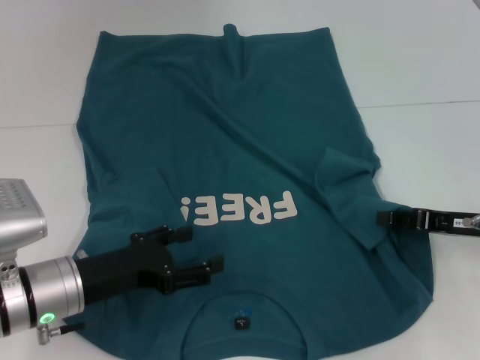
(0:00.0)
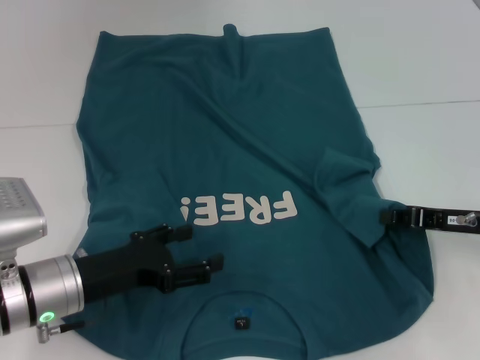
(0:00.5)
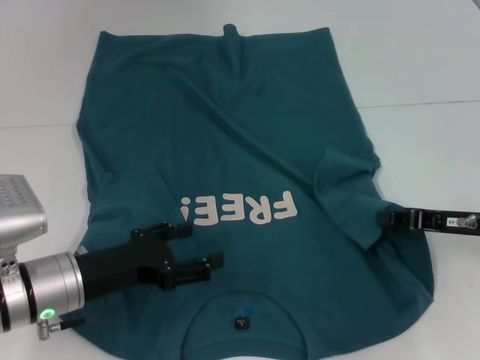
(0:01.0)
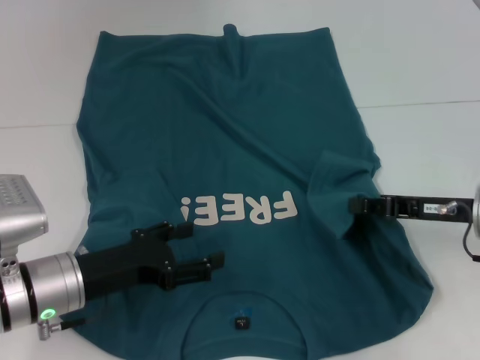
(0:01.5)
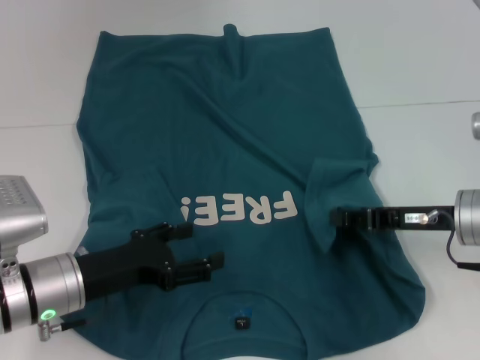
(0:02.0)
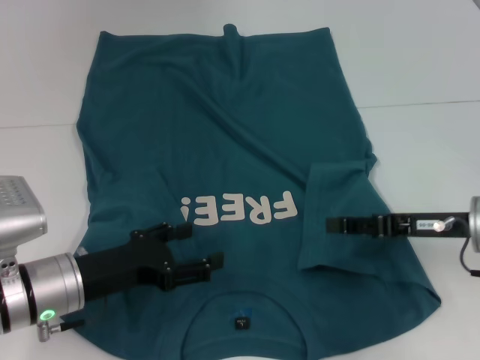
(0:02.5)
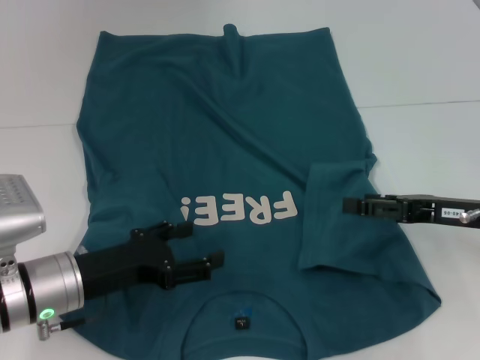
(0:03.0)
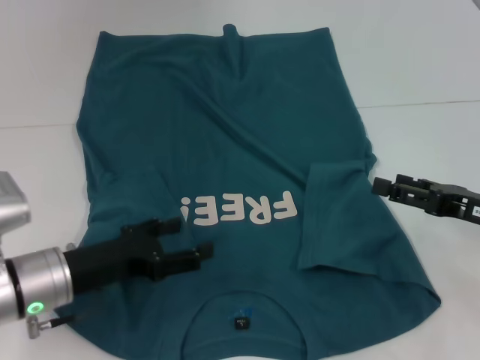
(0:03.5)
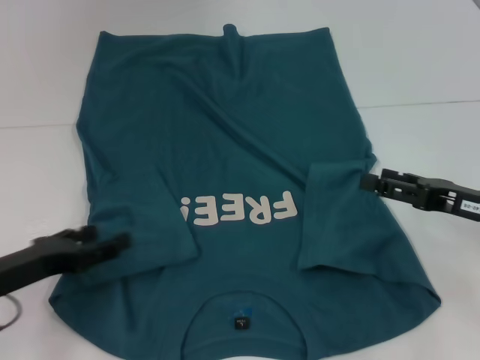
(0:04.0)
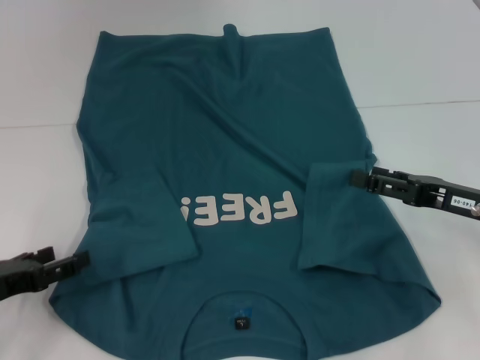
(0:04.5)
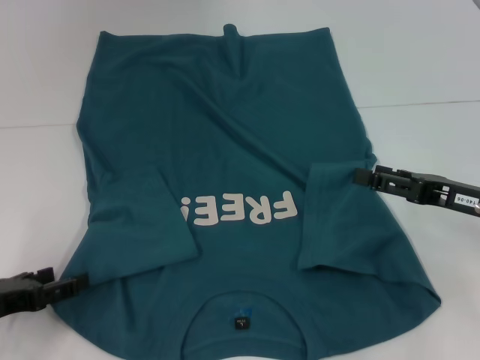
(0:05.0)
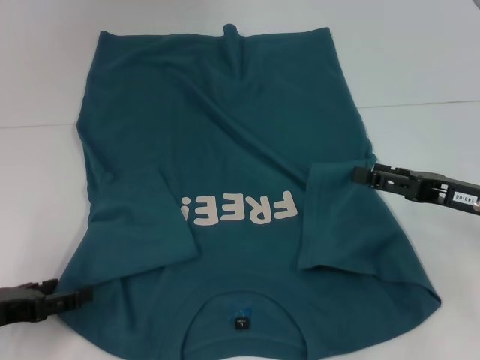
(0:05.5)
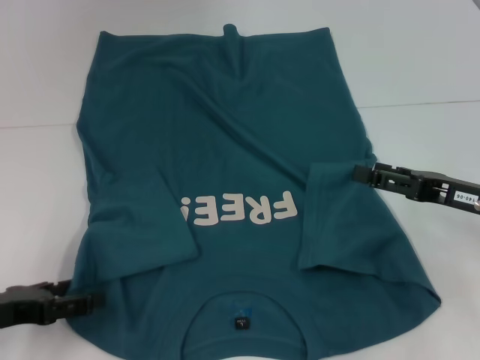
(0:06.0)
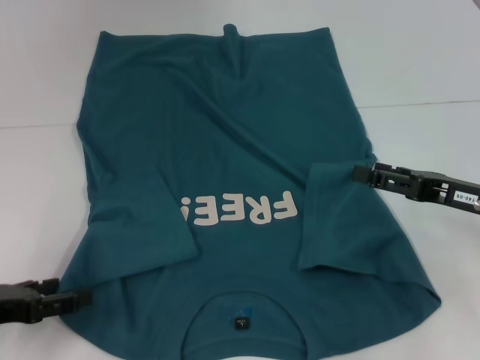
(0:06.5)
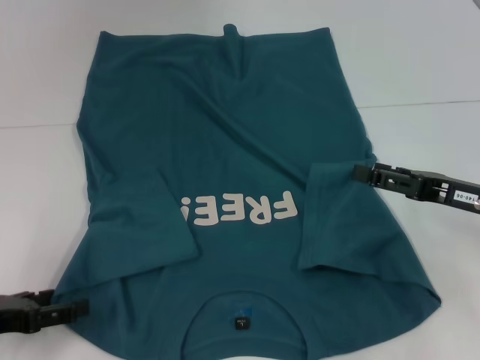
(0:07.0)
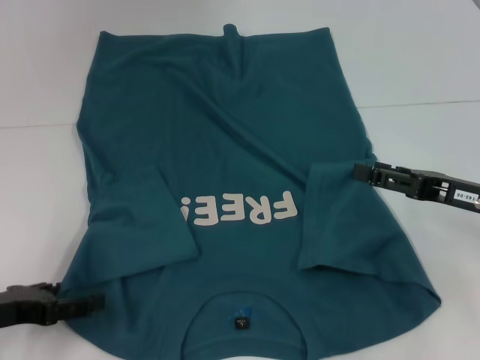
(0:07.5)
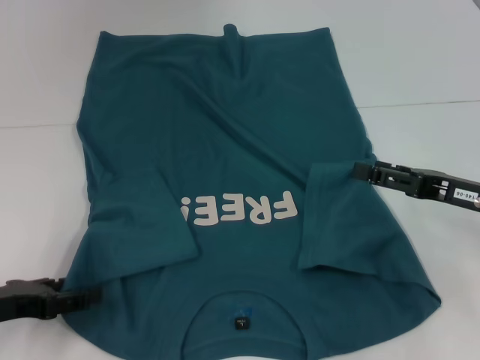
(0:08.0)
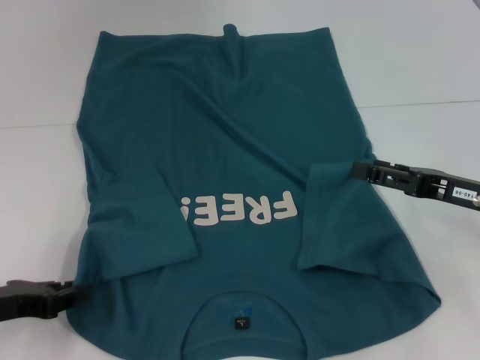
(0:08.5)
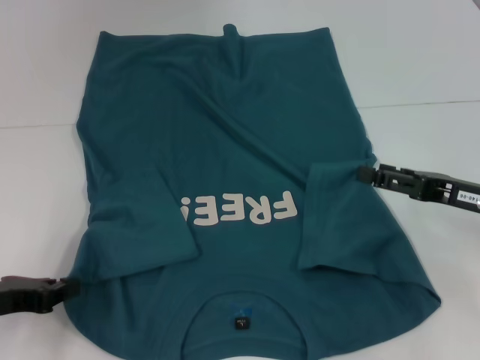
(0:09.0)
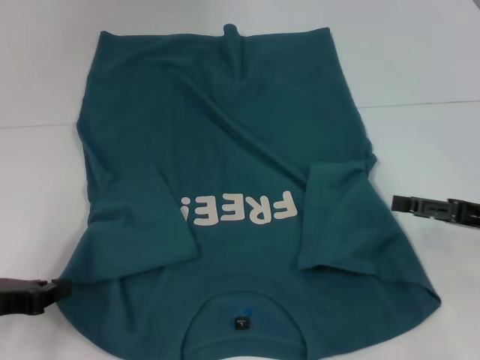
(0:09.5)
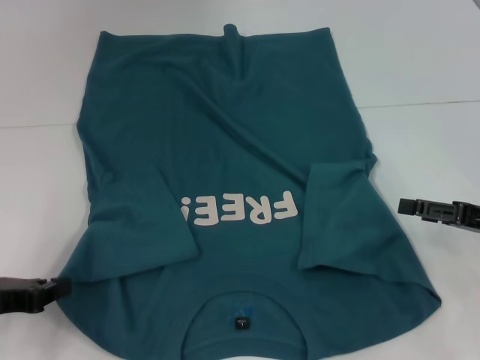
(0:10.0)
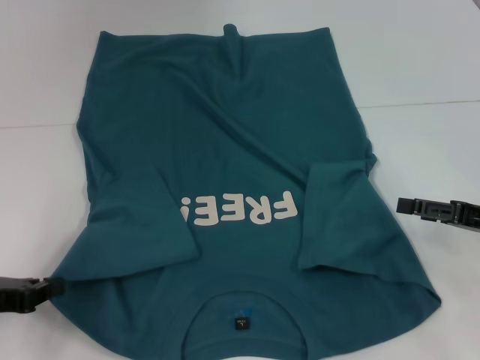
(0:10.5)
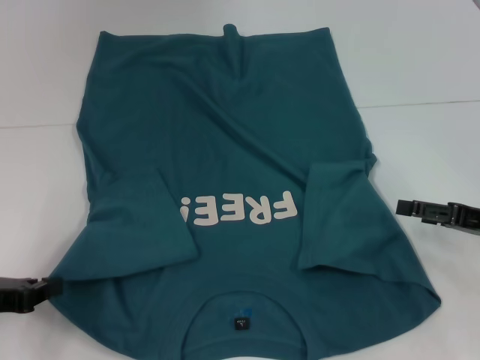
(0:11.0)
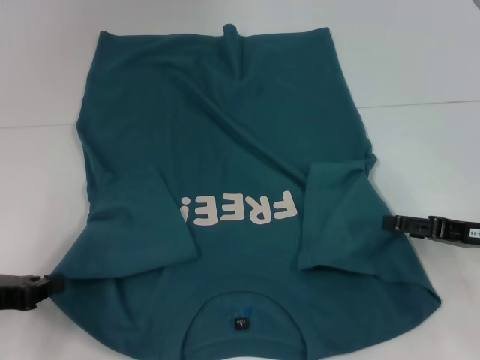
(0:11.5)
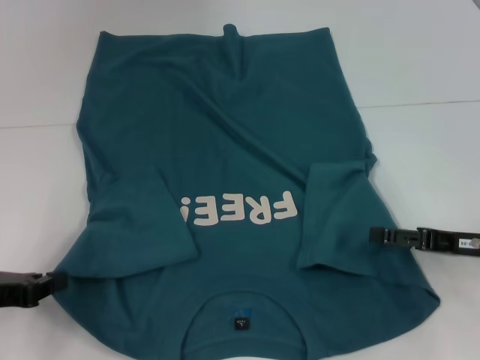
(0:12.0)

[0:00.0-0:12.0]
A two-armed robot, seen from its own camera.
Step, 0:00.0 to 0:02.5: Fold the bottom right sleeve to the right.
Step, 0:03.0 to 0:09.0: Grab the bottom left corner with your left hand.
0:00.0 to 0:02.0: The right gripper moves roughly 5 cm.
0:02.0 to 0:04.0: The right gripper shifts by some 5 cm, and opens; the left gripper goes some 10 cm to the left.
0:04.0 to 0:06.0: The grippers stay close to where they were, moving slightly.
0:06.0 to 0:08.0: Both grippers stay about where they are.
0:08.0 to 0:10.0: The left gripper closes its fingers.
0:10.0 to 0:12.0: The grippers stay close to where they were, moving slightly.

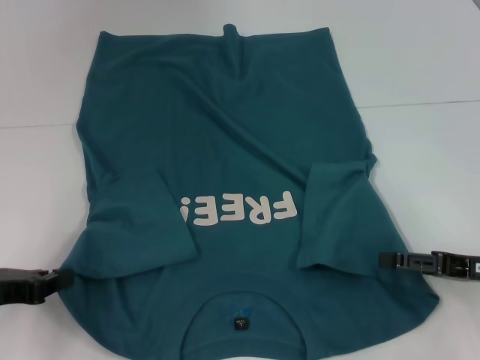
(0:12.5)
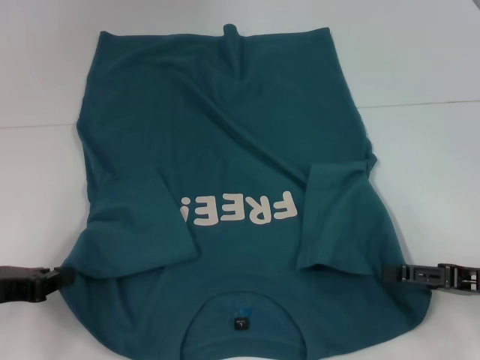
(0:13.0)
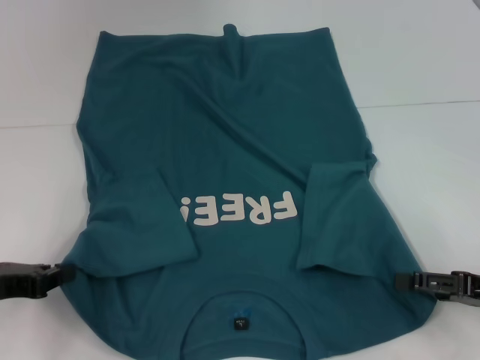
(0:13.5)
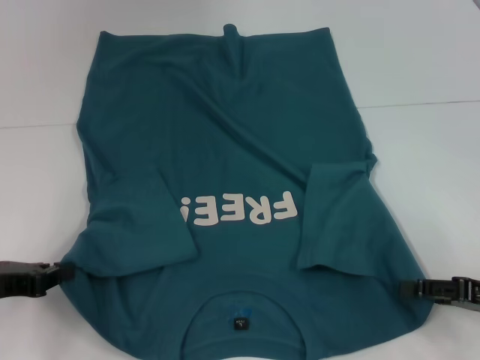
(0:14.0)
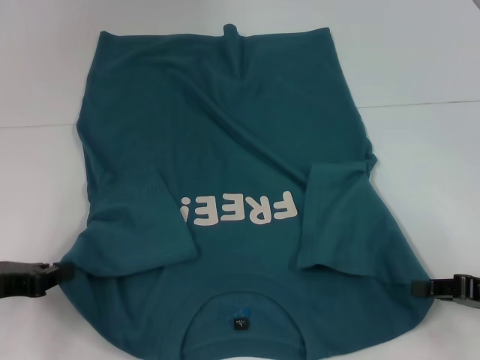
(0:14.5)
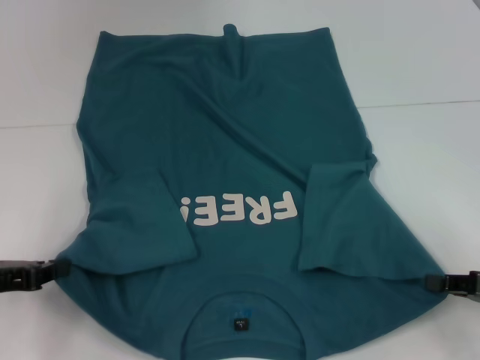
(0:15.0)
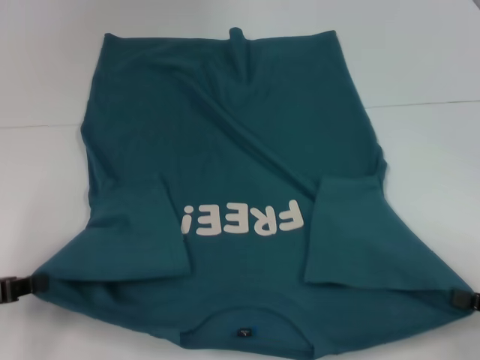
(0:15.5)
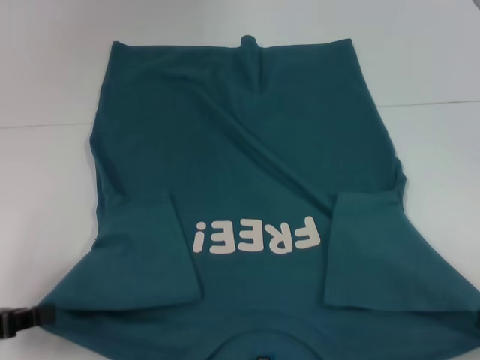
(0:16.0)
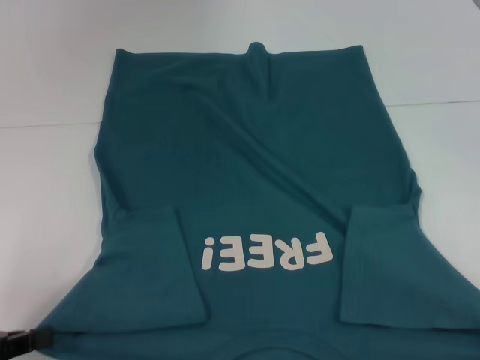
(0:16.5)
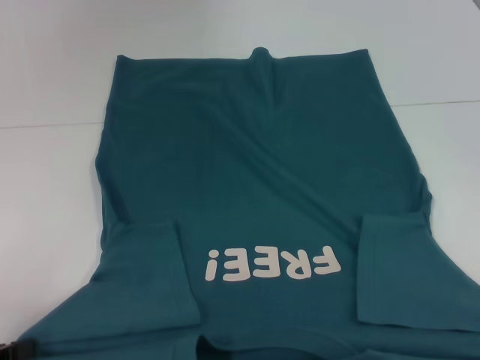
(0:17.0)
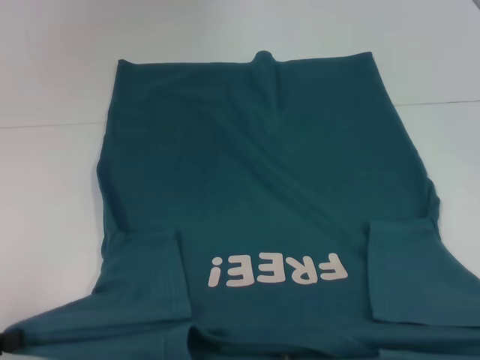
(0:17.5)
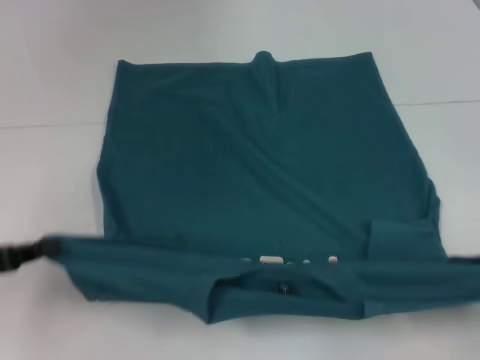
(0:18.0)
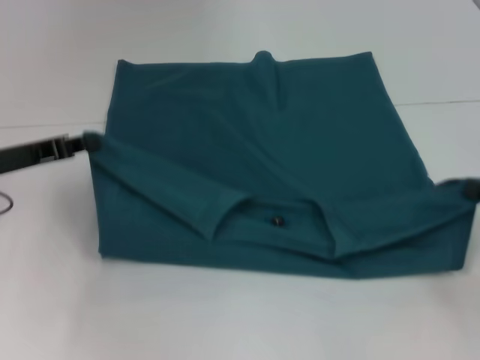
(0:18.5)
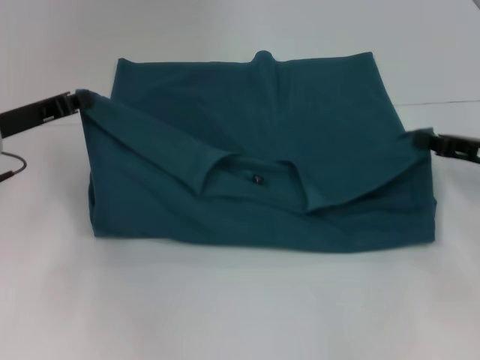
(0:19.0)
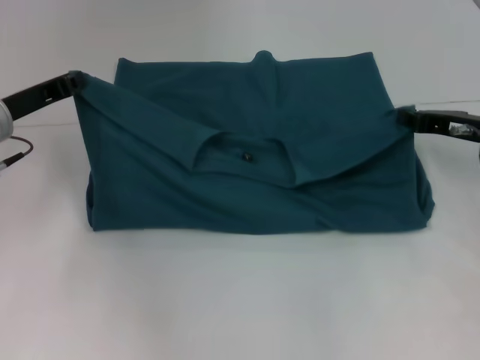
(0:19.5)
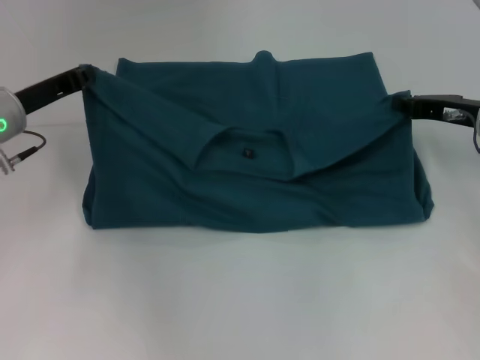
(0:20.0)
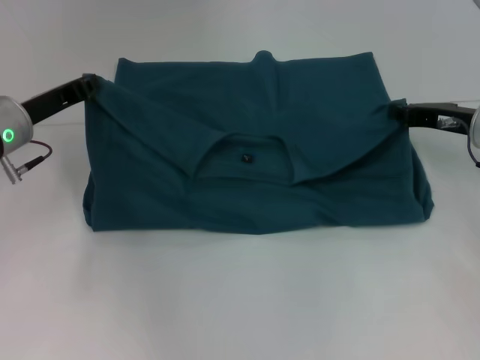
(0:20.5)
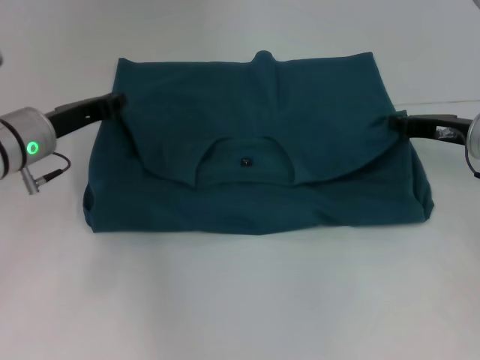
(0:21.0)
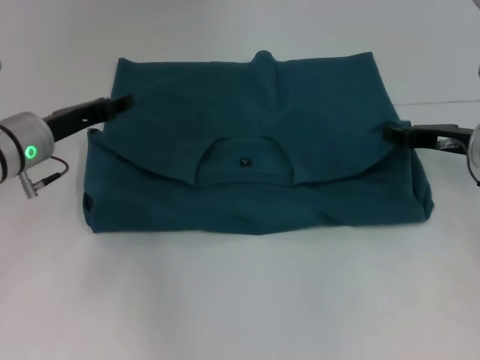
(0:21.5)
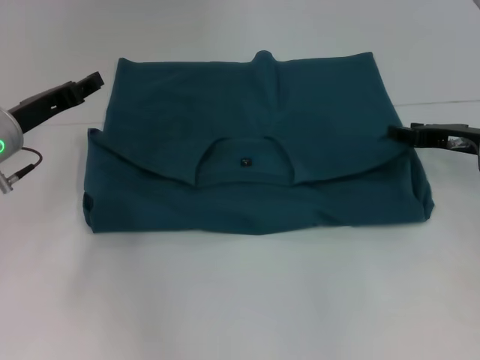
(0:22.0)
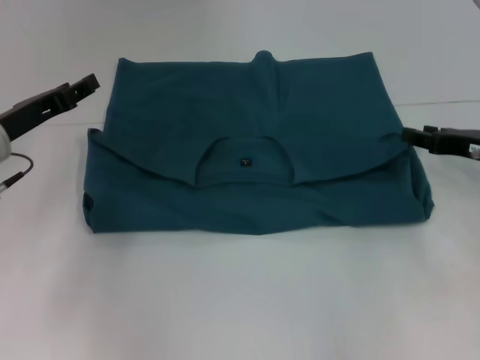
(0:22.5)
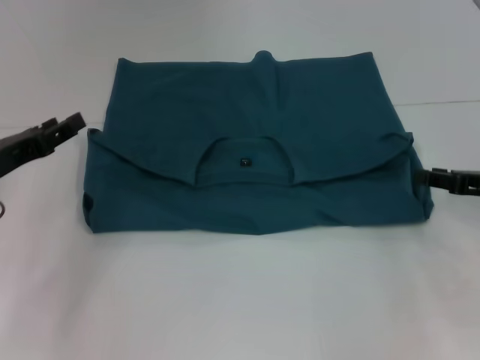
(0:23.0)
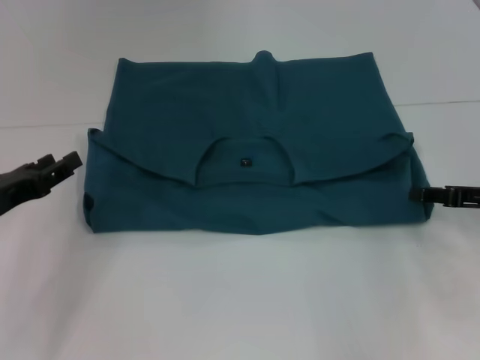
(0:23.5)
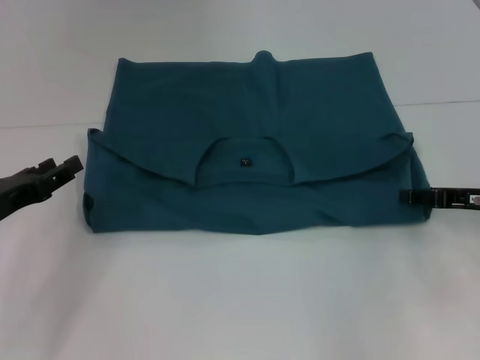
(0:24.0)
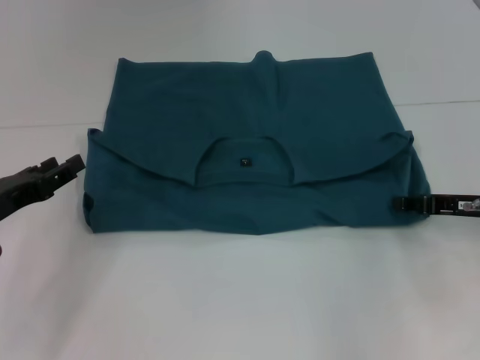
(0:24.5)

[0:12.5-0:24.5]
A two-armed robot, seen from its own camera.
Step, 0:12.5 to 0:14.5: Grab the bottom right corner with your right hand.
Step, 0:15.0 to 0:22.0: Fold the clothes to the left.
Step, 0:15.0 to 0:22.0: Fold the clothes to the right.
0:12.5 to 0:14.5: The right gripper closes its fingers.
0:14.5 to 0:16.5: The right gripper shifts approximately 15 cm backward. The left gripper heads backward, covering approximately 5 cm.
0:16.5 to 0:18.5: Both grippers travel together forward, about 15 cm.
0:18.5 to 0:20.5: The right gripper shifts about 15 cm forward and to the left. Meanwhile the left gripper moves forward, approximately 5 cm.
0:20.5 to 0:22.5: The right gripper shifts by approximately 5 cm, and opens; the left gripper opens its fingers.
0:22.5 to 0:24.5: The left gripper goes some 10 cm backward.

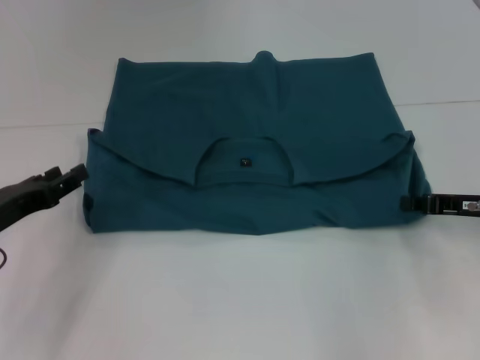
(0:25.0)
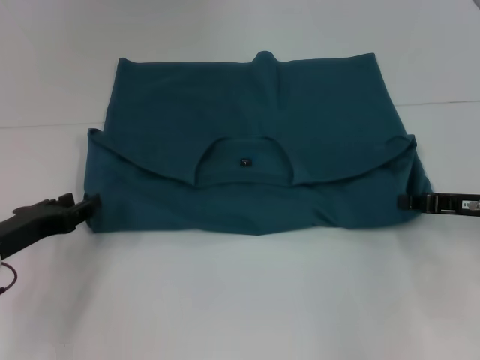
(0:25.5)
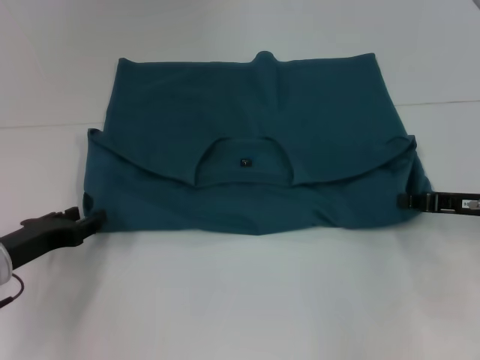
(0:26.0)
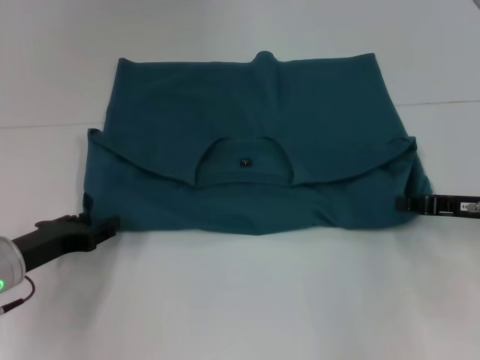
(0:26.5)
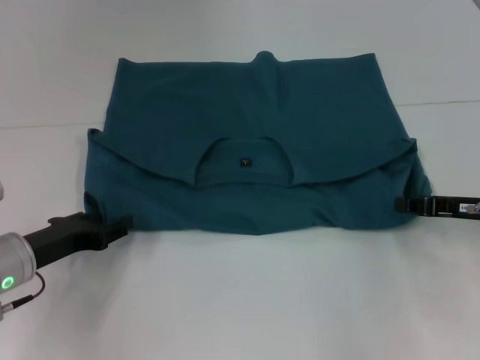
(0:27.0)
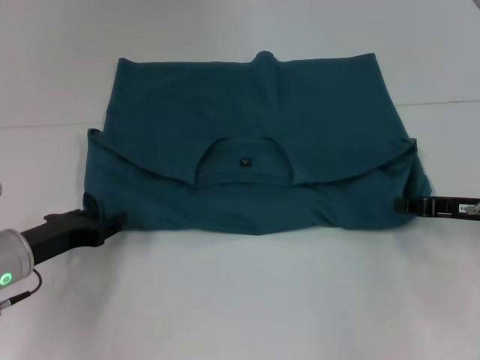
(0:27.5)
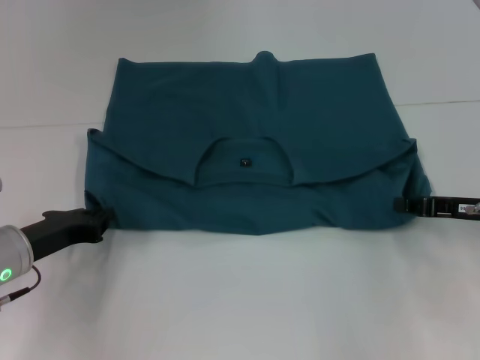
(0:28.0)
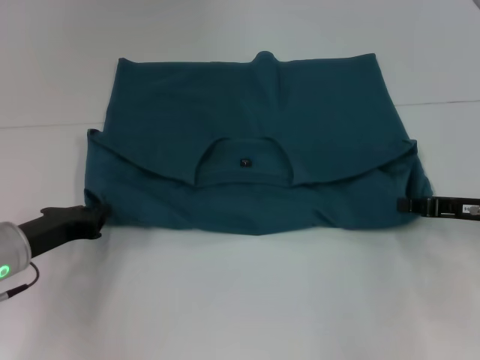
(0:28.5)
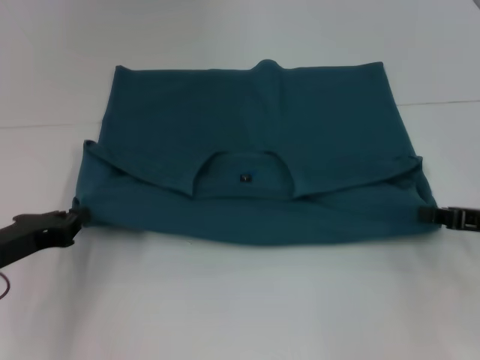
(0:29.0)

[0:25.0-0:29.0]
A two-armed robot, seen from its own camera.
0:25.0 to 0:27.0: The left gripper changes place by some 5 cm.
0:27.0 to 0:29.0: The left gripper closes.
